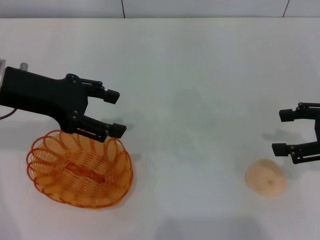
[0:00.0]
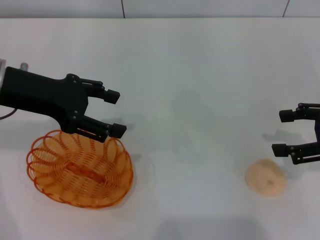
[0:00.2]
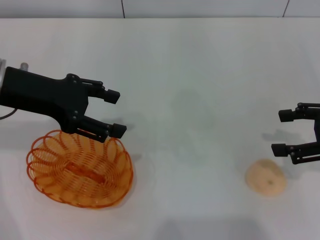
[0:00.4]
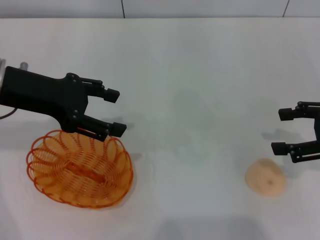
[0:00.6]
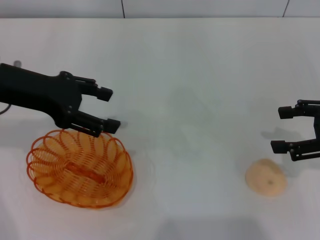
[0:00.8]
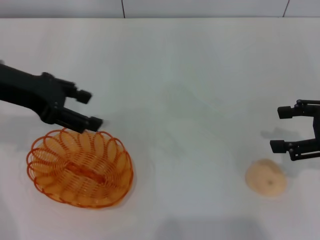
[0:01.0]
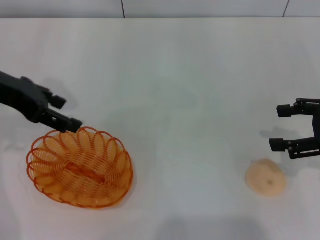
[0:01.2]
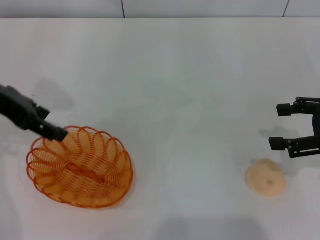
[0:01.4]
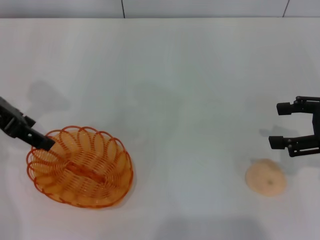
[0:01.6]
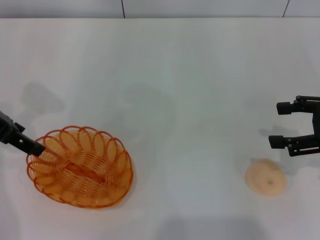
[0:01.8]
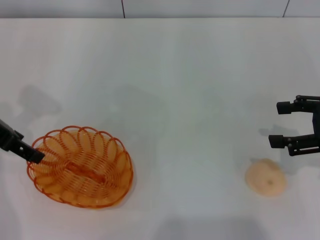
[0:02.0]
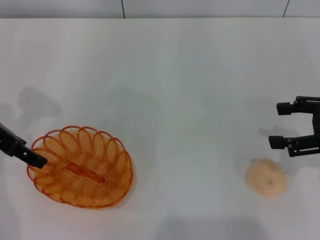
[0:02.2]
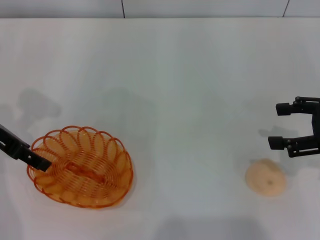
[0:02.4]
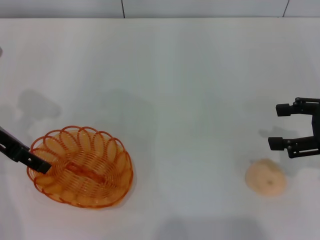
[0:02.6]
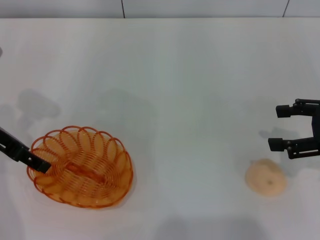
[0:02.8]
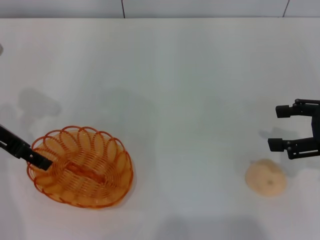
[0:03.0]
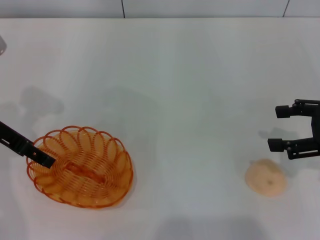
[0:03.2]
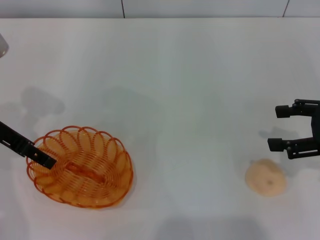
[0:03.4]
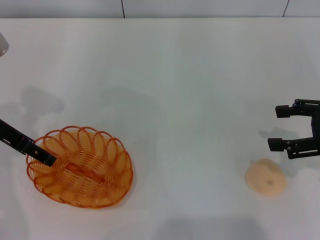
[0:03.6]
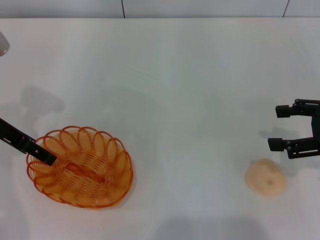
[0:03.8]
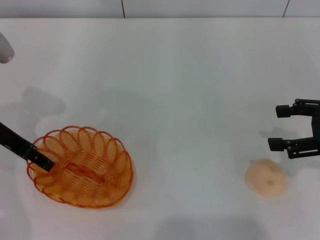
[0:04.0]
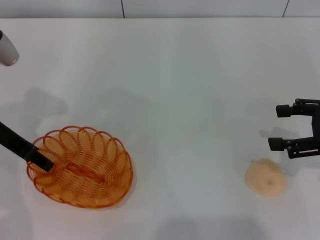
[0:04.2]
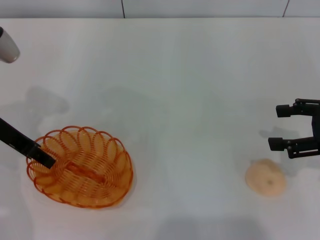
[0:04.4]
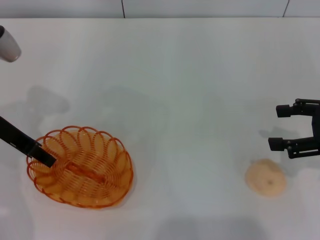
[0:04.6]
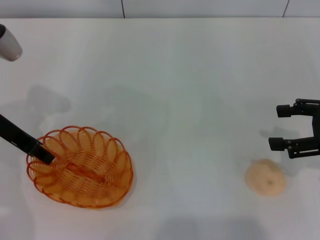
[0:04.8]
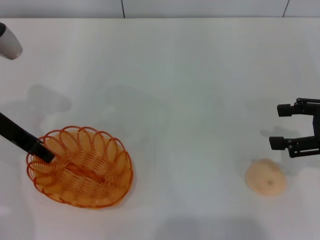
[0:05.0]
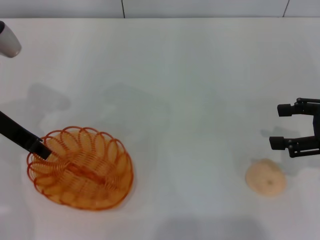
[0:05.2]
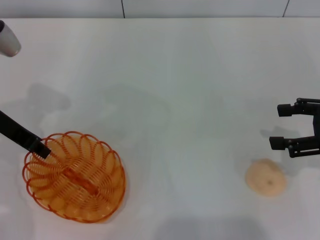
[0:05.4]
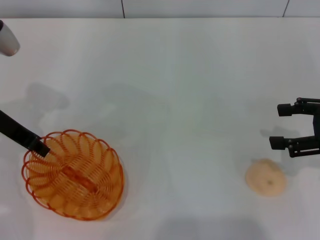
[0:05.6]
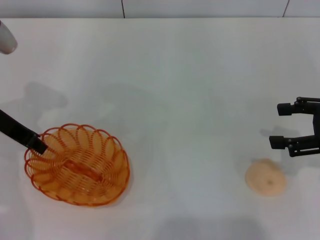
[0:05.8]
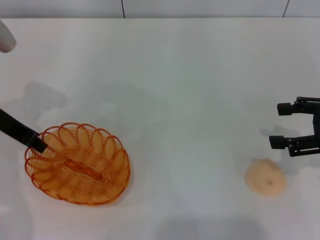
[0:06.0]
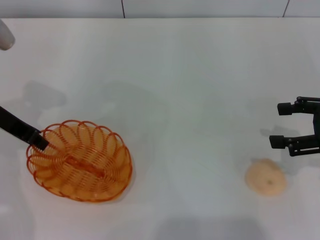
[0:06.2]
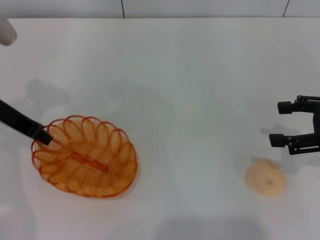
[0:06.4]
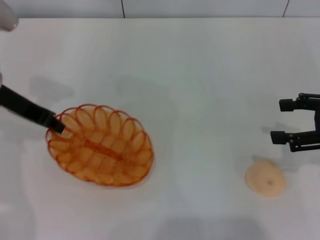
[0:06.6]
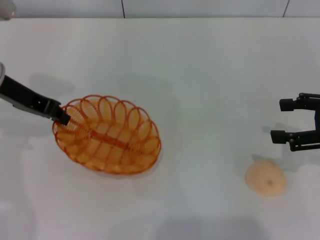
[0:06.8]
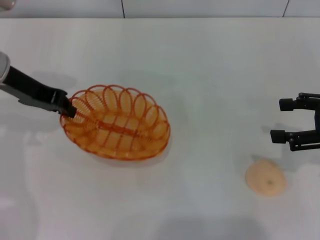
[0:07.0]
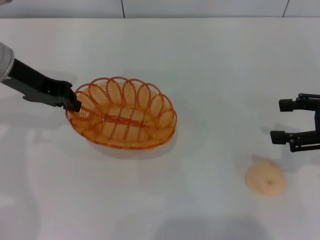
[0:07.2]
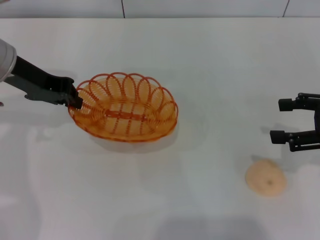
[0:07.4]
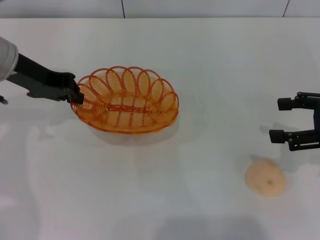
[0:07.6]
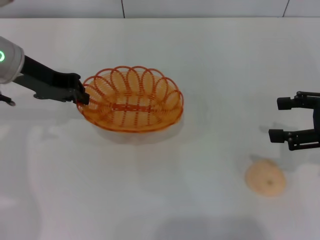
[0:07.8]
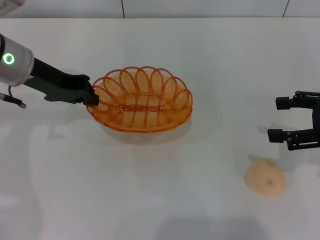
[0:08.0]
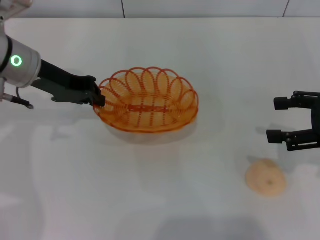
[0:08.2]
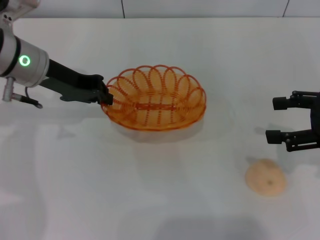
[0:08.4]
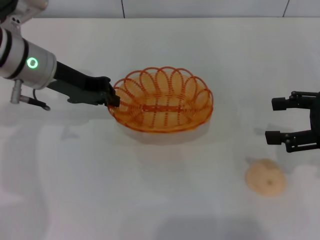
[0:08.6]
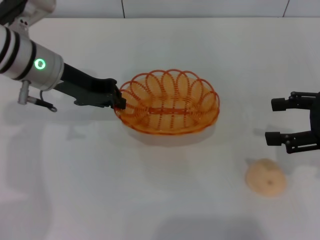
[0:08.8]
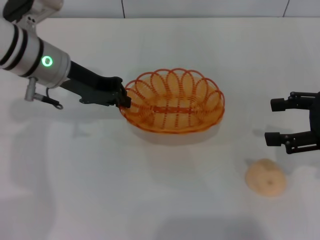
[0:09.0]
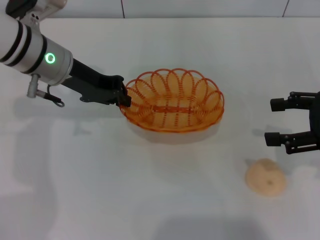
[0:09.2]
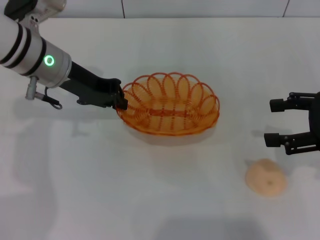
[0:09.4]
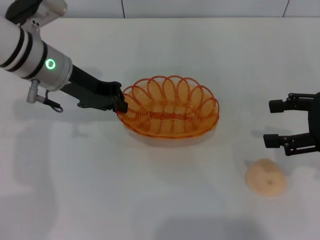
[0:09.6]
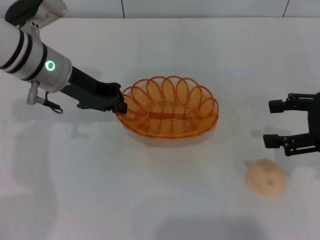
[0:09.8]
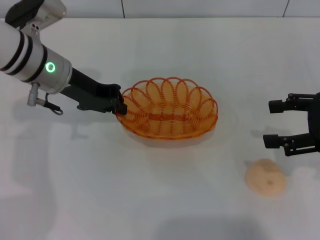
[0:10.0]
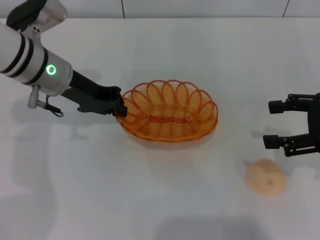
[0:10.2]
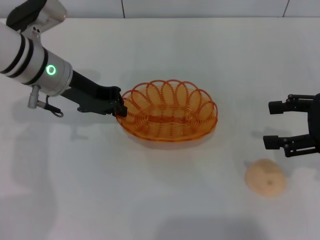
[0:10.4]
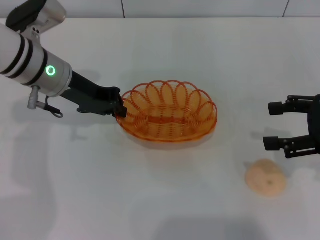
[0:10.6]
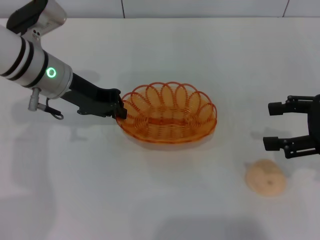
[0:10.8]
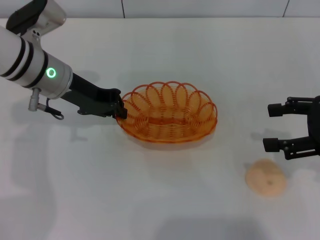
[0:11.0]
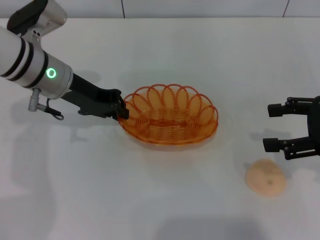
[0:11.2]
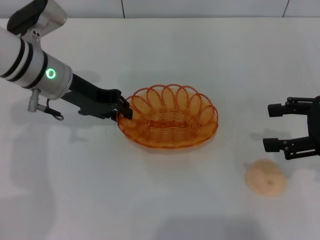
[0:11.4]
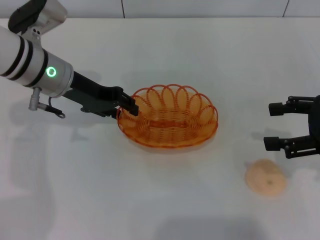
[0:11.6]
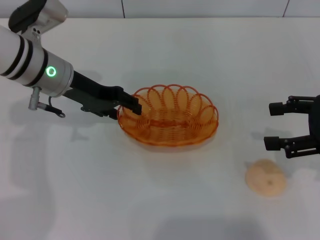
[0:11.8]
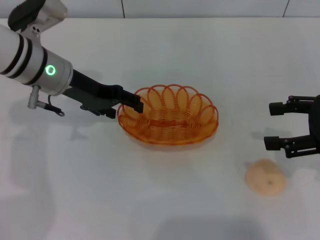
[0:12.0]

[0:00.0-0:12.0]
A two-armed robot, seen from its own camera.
Step, 0:00.0 to 0:07.8: Pick up the basket with the left gripper.
0:01.6 to 0:03.0: The left gripper shifts roughly 5 cm downward.
0:03.0 to 0:04.4: The left gripper closes.
0:04.4 to 0:06.0: The left gripper closes its fingers.
0:06.0 to 0:07.6: The left gripper changes place by some 5 cm.
0:07.6 to 0:09.0: The left gripper travels to the right by roughly 5 cm.
0:09.0 to 0:10.4: Both grippers stay about where they are.
0:10.4 to 0:12.0: The left gripper opens its fingers.

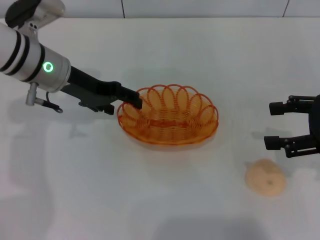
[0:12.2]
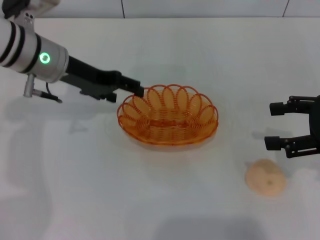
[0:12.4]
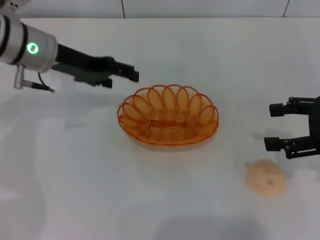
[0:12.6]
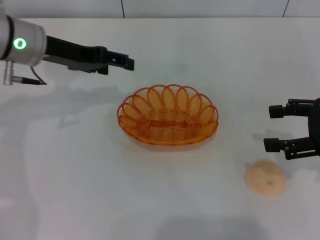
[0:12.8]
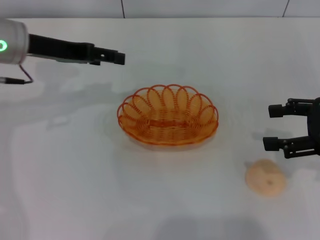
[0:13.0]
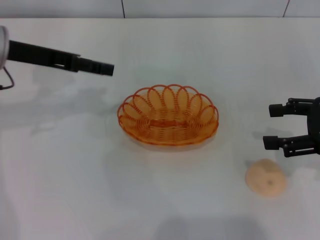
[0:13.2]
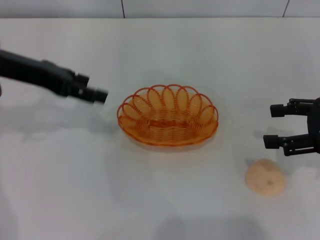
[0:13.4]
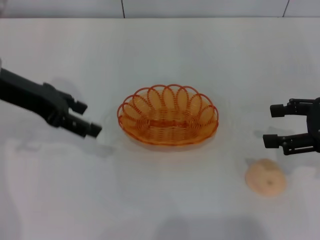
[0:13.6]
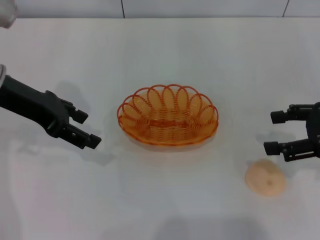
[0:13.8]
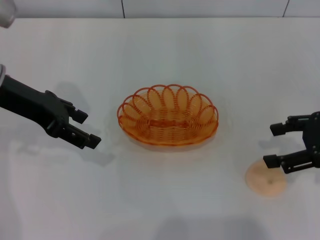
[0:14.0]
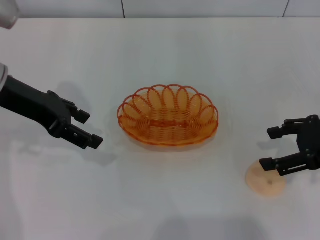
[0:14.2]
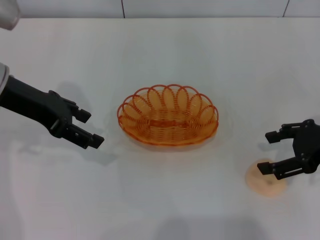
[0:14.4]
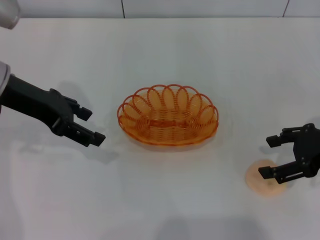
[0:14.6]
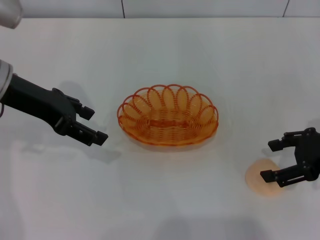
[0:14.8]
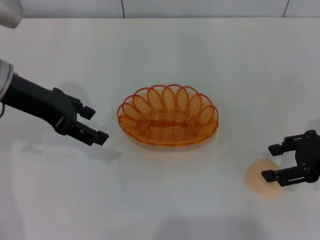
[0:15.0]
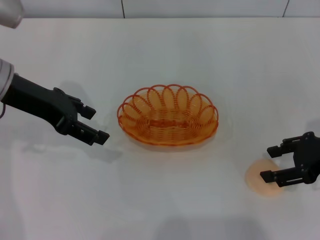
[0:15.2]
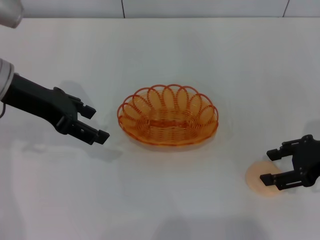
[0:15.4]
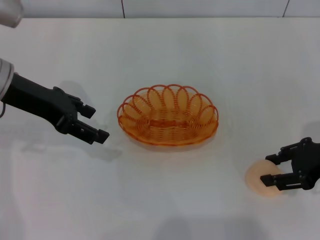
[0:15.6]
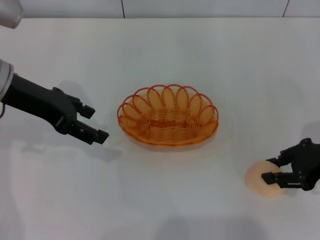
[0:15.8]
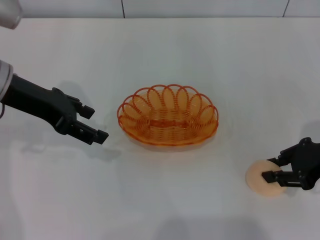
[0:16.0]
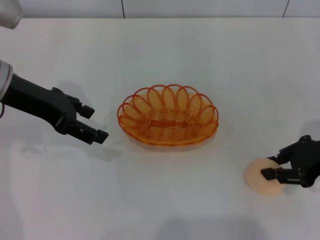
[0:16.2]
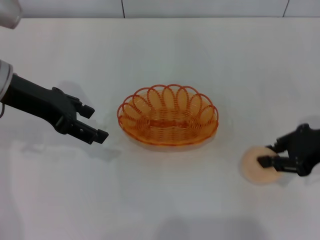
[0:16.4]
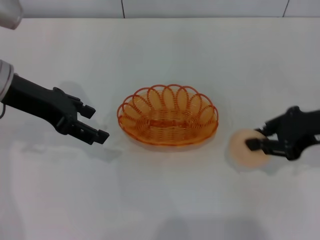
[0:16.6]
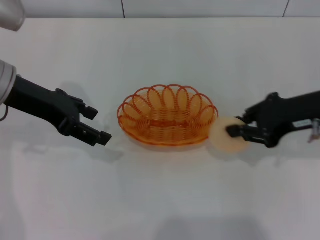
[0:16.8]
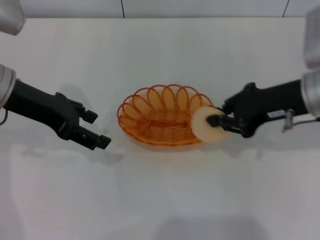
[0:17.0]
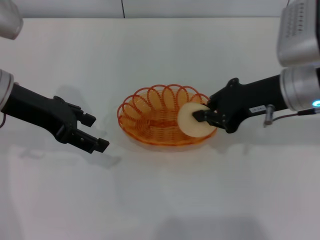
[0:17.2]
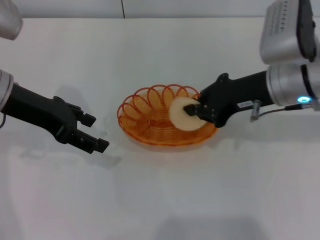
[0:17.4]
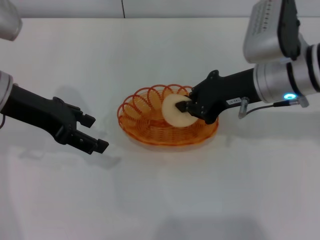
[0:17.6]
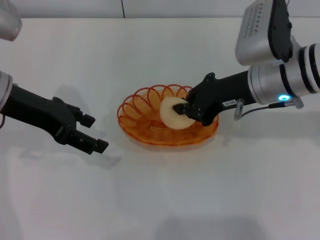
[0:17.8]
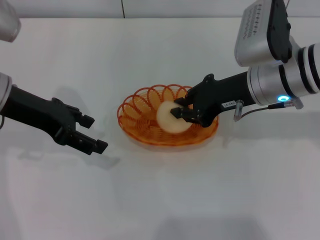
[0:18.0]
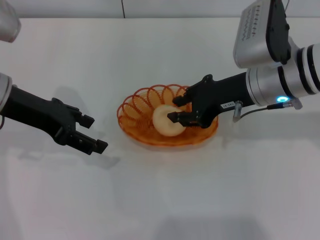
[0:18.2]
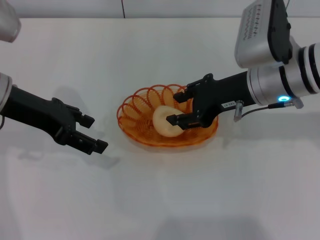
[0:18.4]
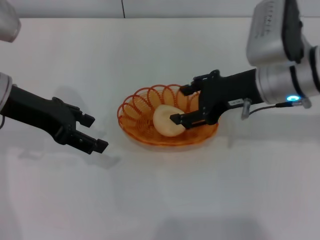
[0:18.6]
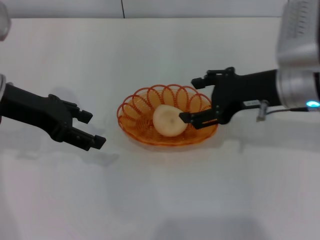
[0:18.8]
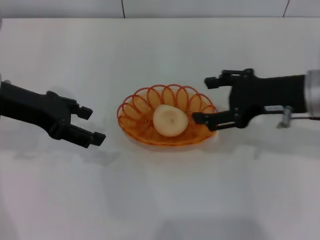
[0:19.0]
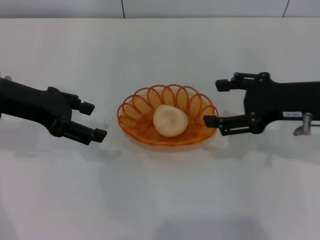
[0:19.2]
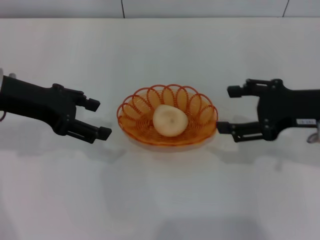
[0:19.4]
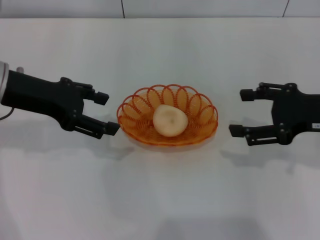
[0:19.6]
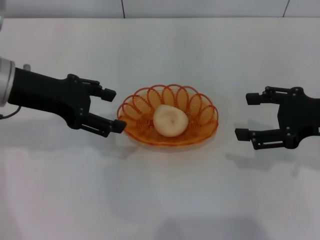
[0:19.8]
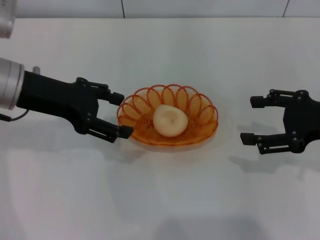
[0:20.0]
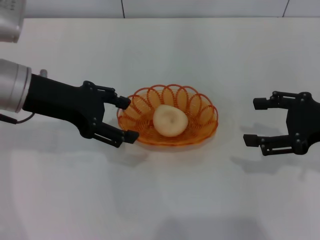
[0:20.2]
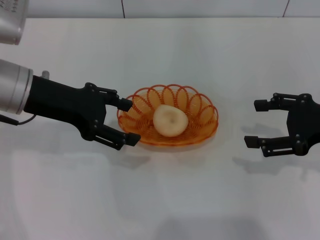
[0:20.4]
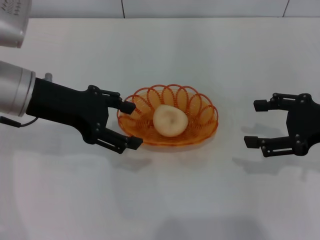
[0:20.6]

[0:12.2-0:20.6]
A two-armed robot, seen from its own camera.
Step, 0:13.0 to 0:16.8: Pick up the egg yolk pastry with the right gripper.
Step, 0:17.0 to 0:19.0: Place the egg yolk pastry into the basket with the right gripper.
0:12.2 to 0:13.6: The left gripper moves to the left and upward, approximately 10 cm.
0:13.6 to 0:15.0: The grippers make only small movements.
0:15.0 to 0:16.4: The right gripper closes its fingers.
0:16.4 to 0:17.8: The right gripper goes roughly 15 cm to the left and forward.
0:17.8 to 0:19.2: The right gripper heads to the right and backward, covering about 10 cm, and opens up.
0:19.2 to 0:20.6: The right gripper moves to the right, about 5 cm.

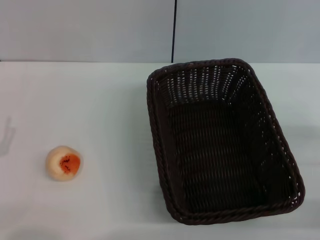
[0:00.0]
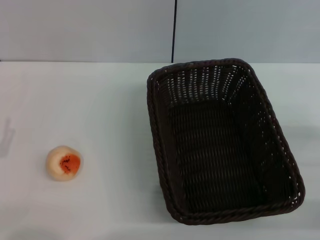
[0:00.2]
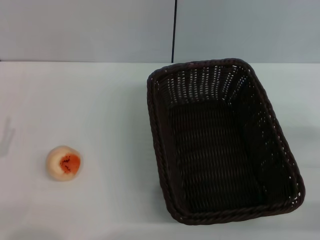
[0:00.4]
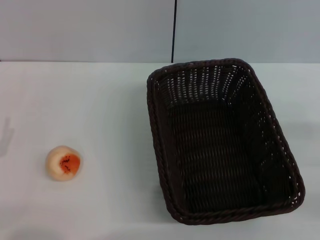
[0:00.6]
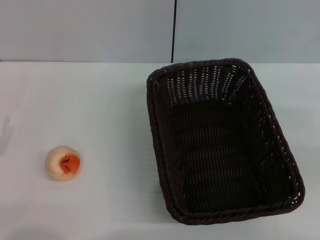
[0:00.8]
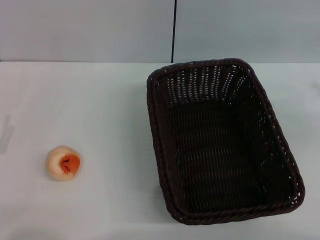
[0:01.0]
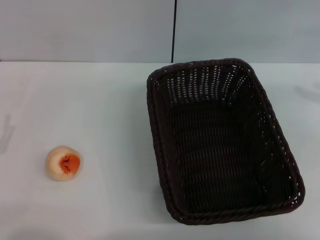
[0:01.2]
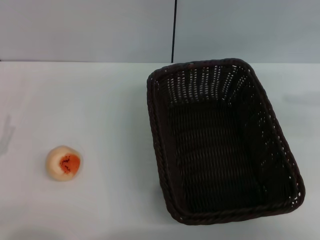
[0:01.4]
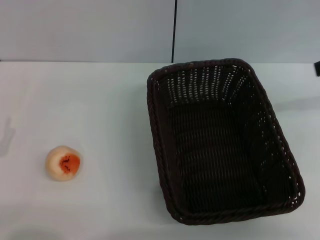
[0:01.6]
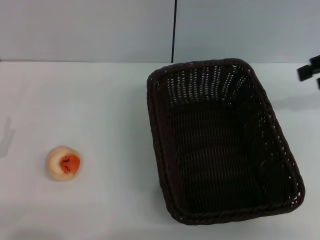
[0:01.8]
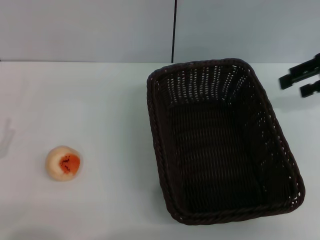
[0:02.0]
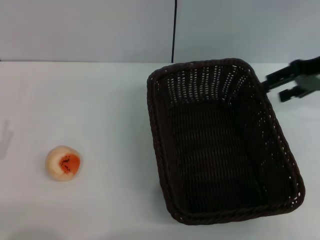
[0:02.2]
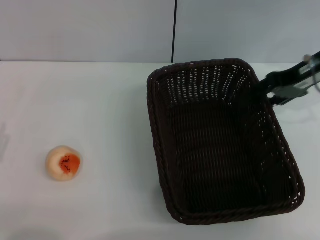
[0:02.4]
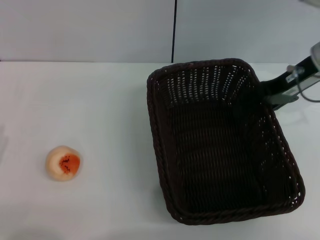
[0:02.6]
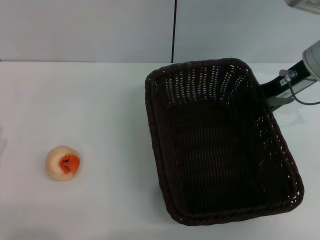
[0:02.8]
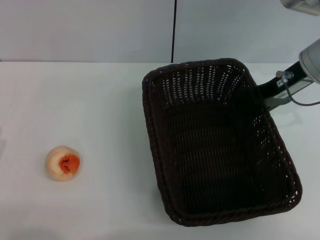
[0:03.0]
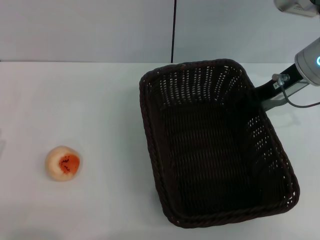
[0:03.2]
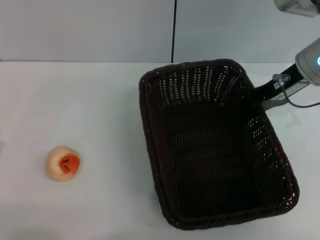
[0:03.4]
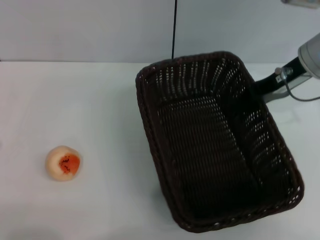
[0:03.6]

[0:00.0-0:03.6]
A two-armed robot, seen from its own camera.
0:00.0 to 0:01.8: The right gripper heads upward and forward, covering approximately 25 cm.
0:01.8 to 0:03.6: The right gripper goes roughly 15 cm to the left and downward, and closes its fingers.
